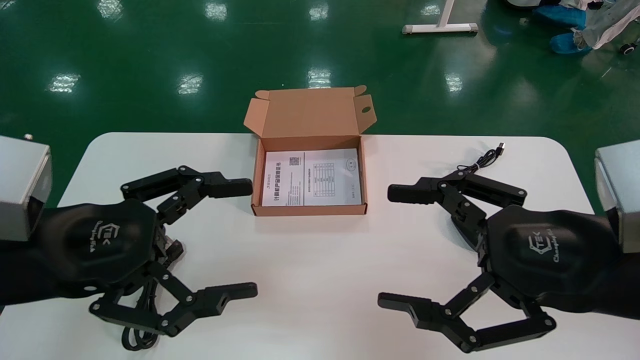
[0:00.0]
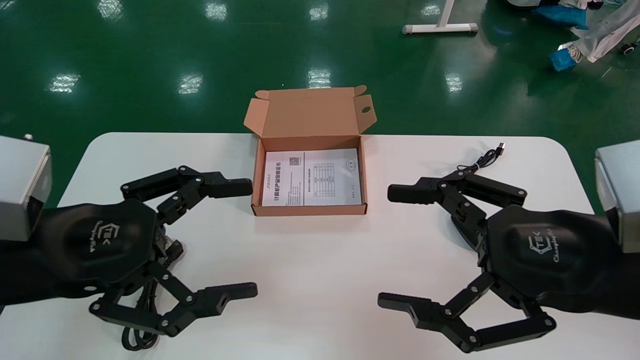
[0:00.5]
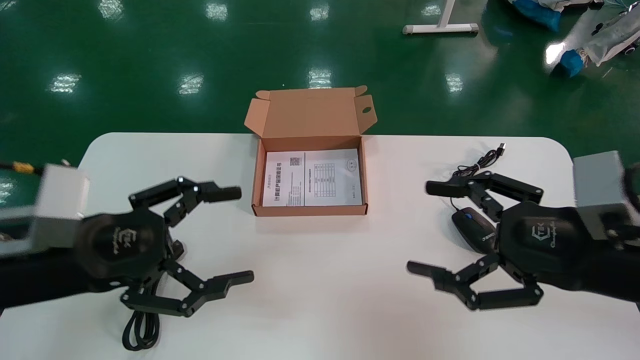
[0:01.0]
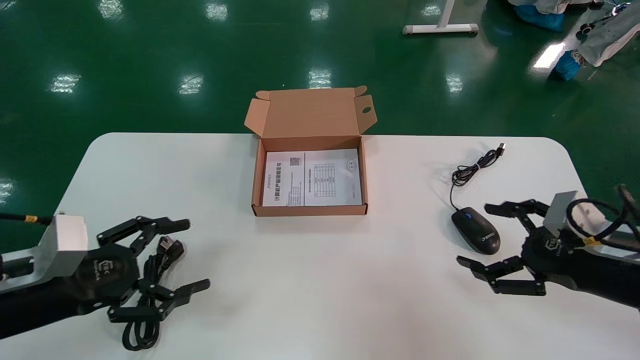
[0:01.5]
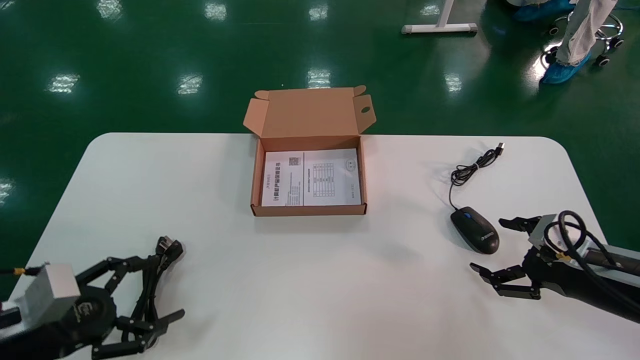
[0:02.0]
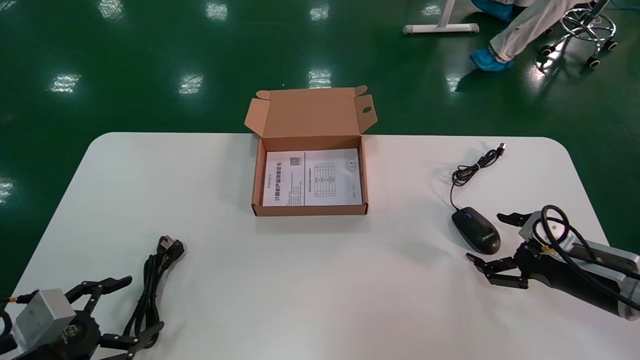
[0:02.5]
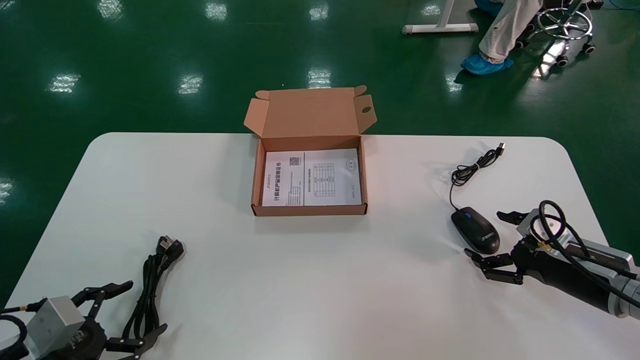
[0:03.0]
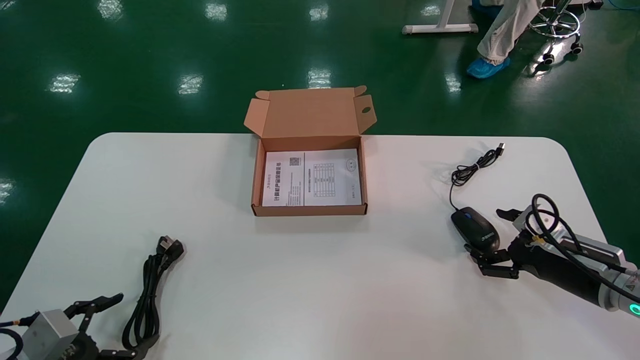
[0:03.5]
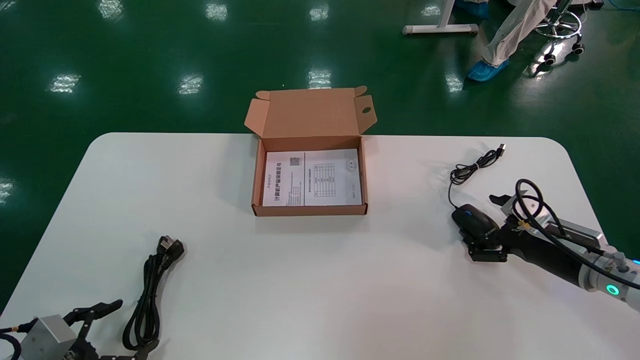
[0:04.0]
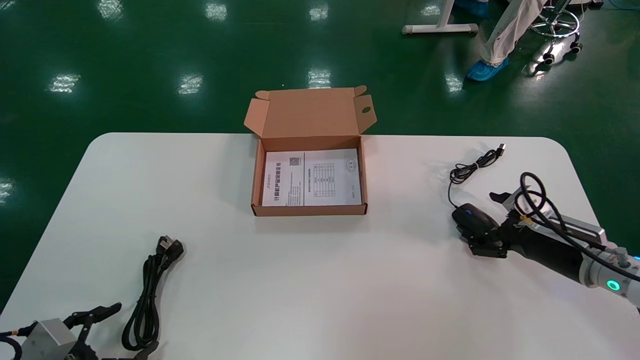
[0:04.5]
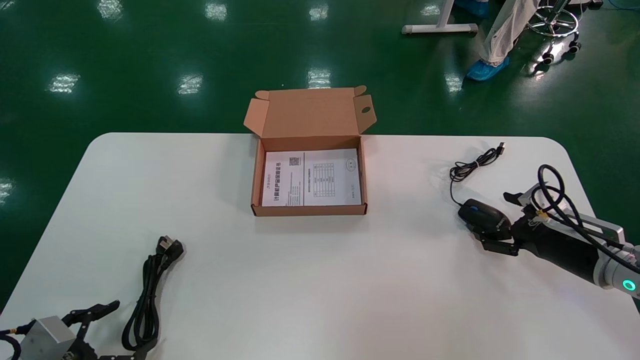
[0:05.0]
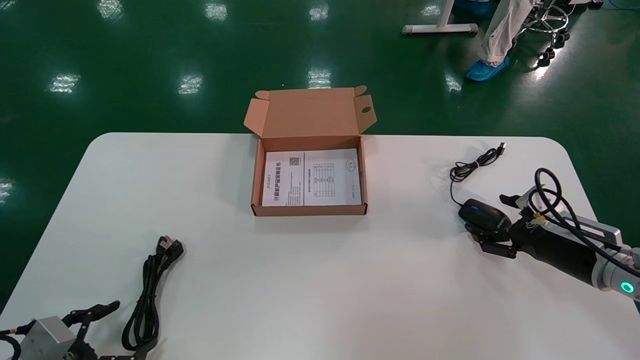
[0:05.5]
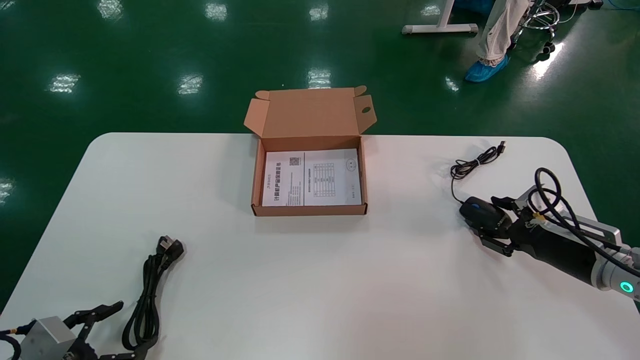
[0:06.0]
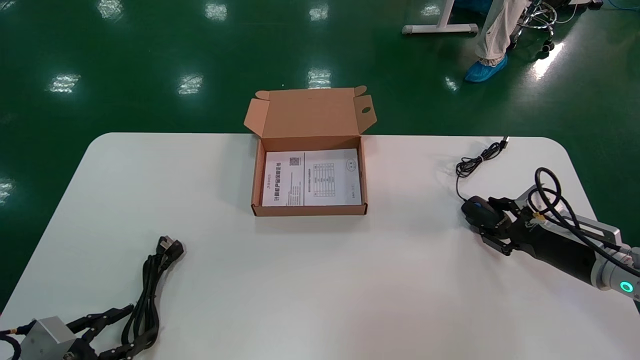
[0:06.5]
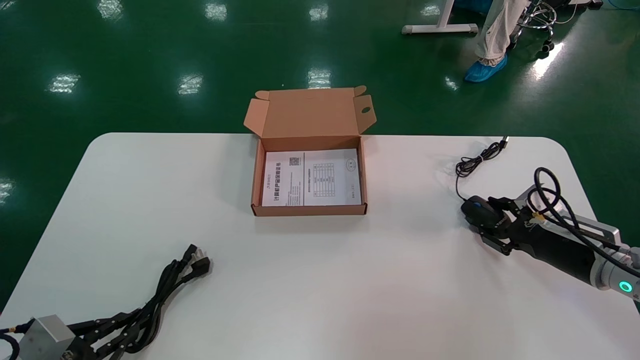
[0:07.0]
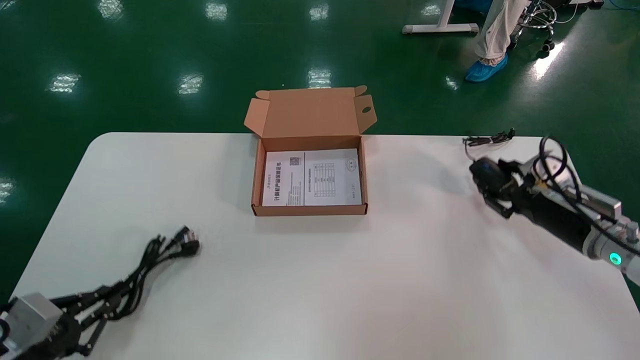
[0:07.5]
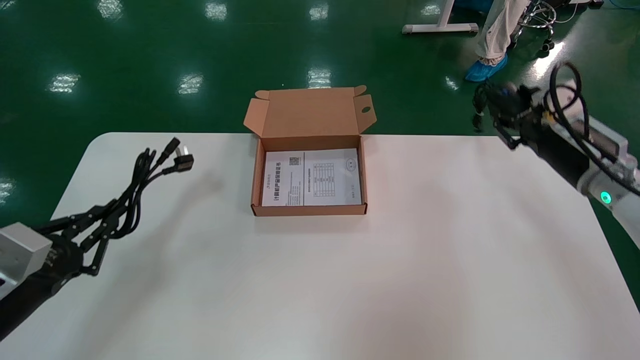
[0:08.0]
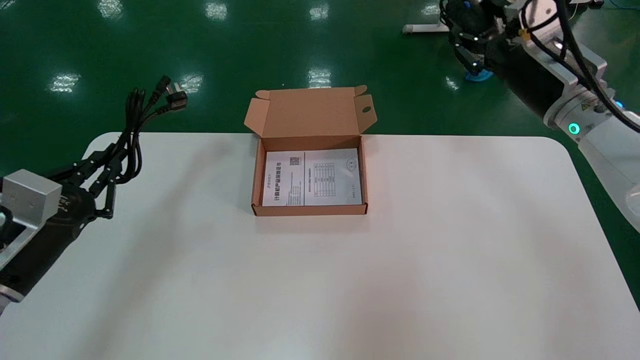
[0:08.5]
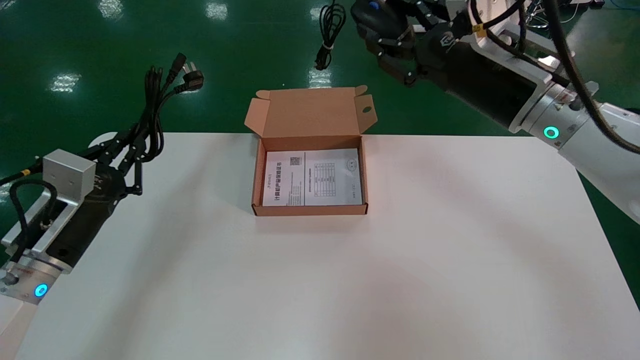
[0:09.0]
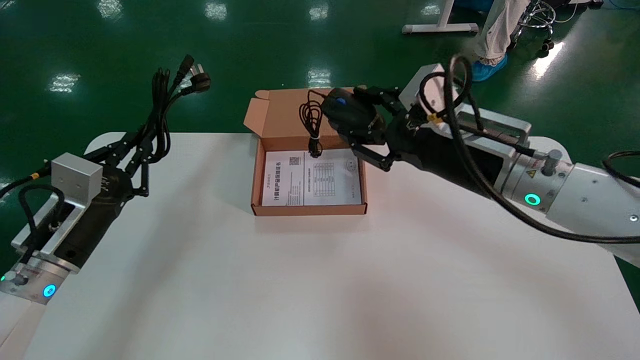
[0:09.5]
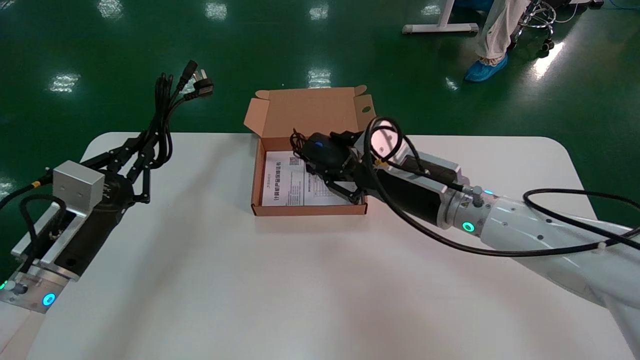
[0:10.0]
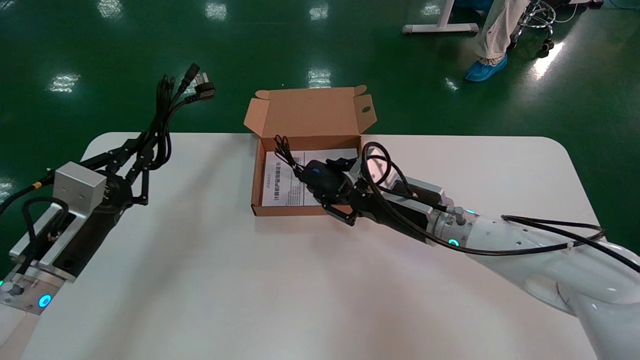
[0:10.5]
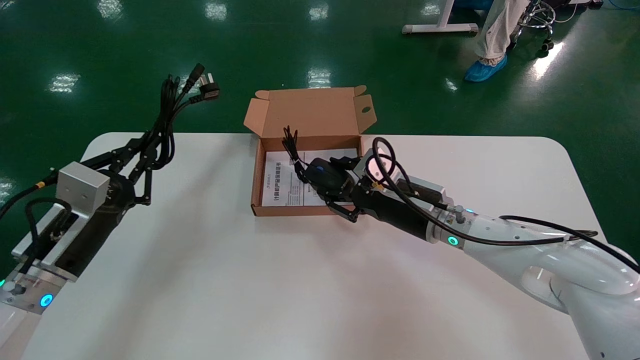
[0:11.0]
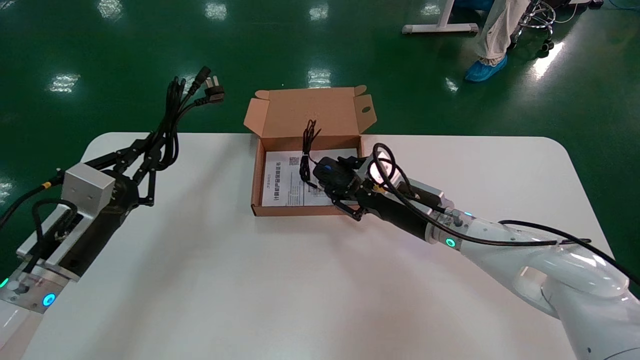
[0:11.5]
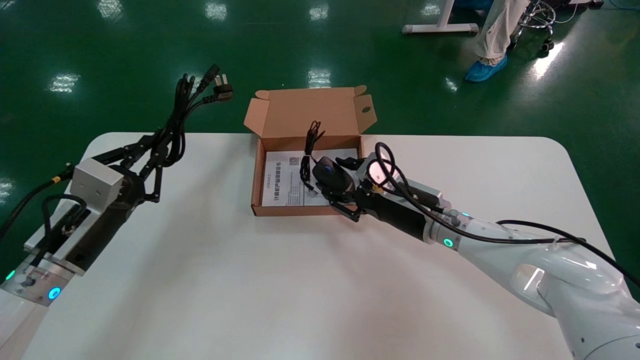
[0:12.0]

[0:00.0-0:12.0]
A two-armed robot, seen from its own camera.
Step, 0:01.5 to 0:07.0: Grab and pick up the mouse and power cord from the accessory packaging area.
0:00.0 to 0:02.0: The right gripper heads downward, to the right and forward, covering about 20 cm. The left gripper is displaced downward and to the left by about 20 cm.
0:02.0 to 0:04.0: The left gripper travels downward by approximately 10 cm. Meanwhile the right gripper travels forward by some 10 cm.
0:04.0 to 0:06.0: The right gripper closes up.
0:06.0 to 0:08.0: The left gripper heads upward and forward, covering roughly 10 cm, and closes up, while the right gripper is displaced upward by approximately 15 cm, and closes up.
0:08.0 to 0:10.0: The left gripper travels forward and to the right by approximately 10 cm; the right gripper shifts some 20 cm to the left.
0:10.0 to 0:12.0: The right gripper is displaced downward and forward by approximately 10 cm.

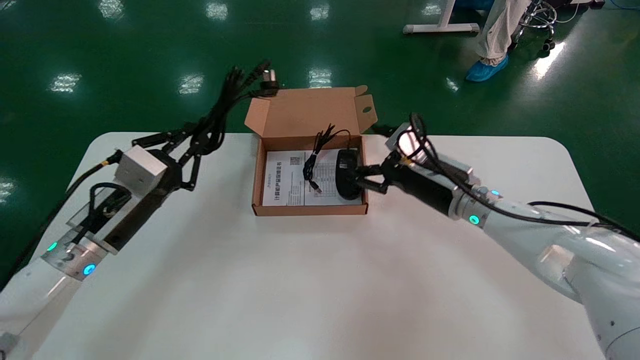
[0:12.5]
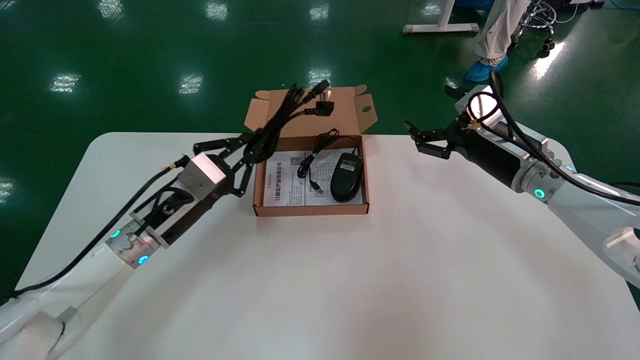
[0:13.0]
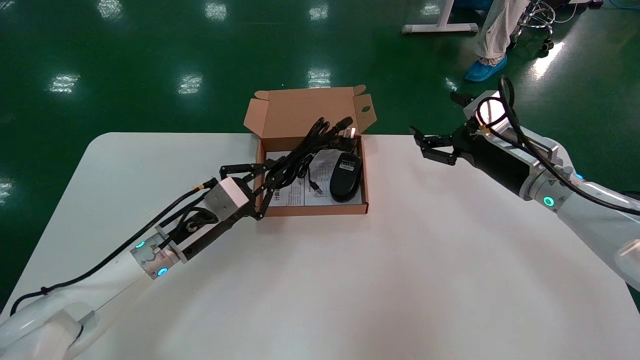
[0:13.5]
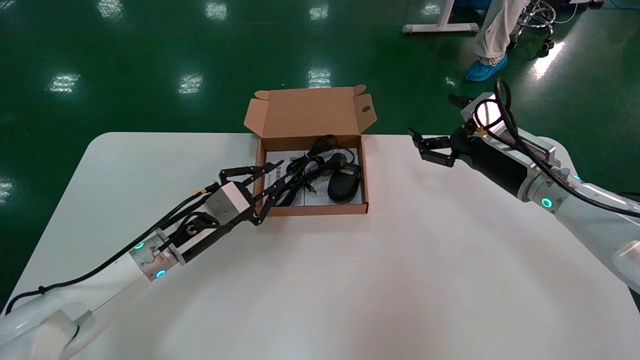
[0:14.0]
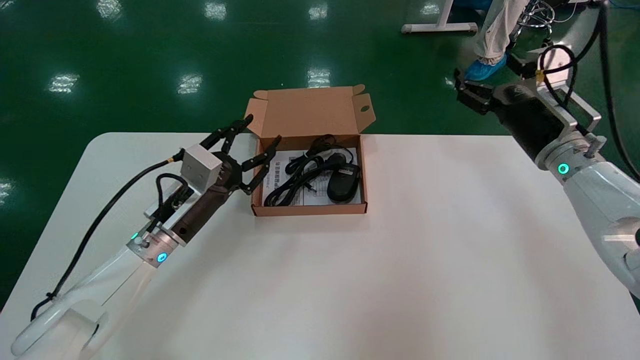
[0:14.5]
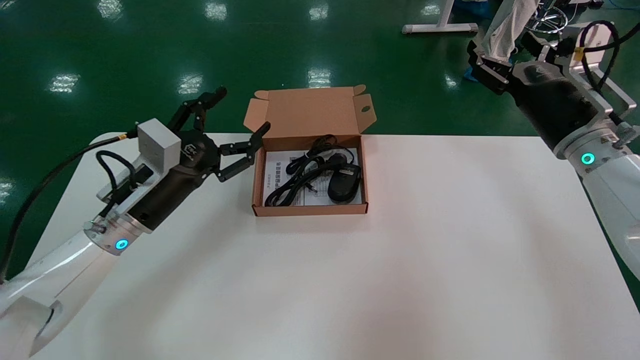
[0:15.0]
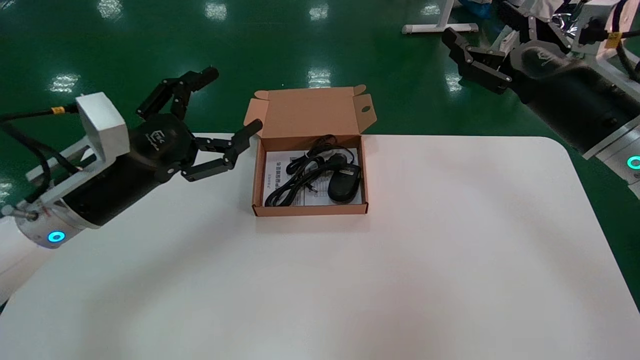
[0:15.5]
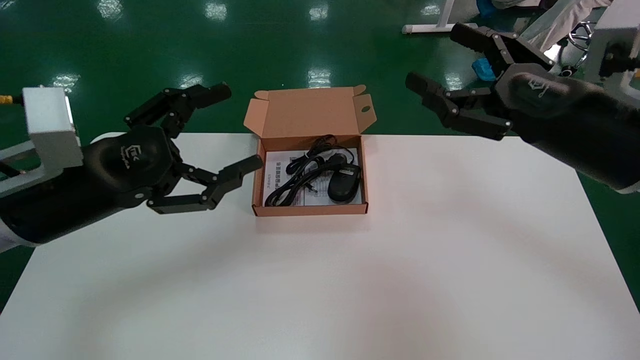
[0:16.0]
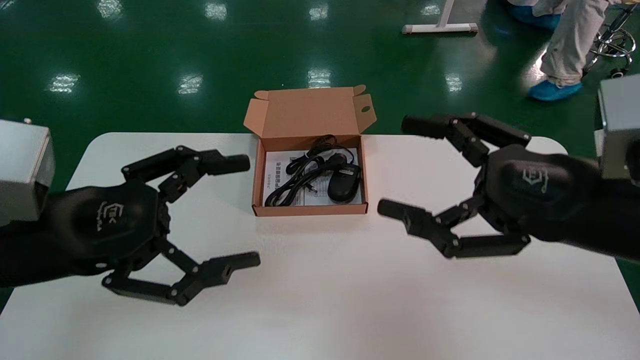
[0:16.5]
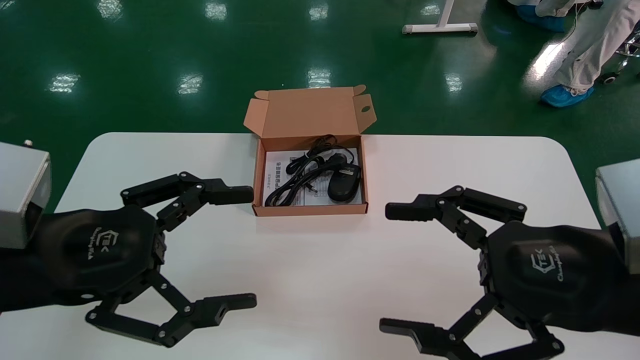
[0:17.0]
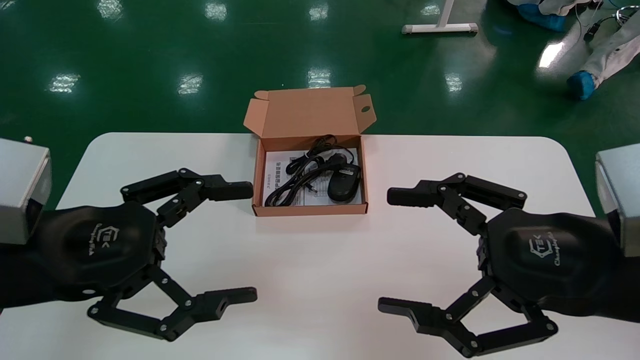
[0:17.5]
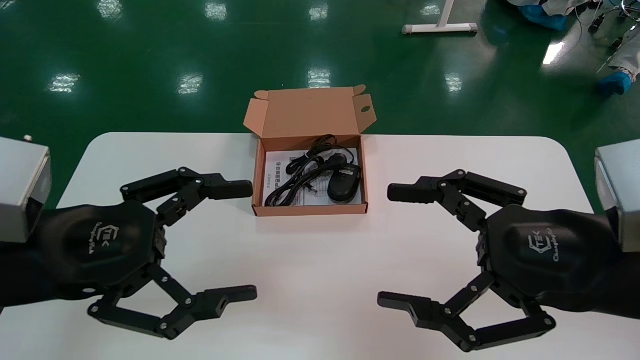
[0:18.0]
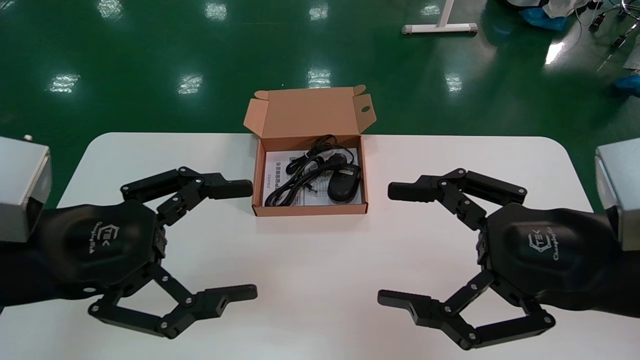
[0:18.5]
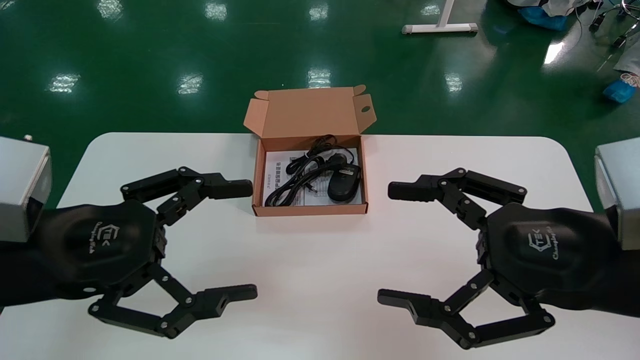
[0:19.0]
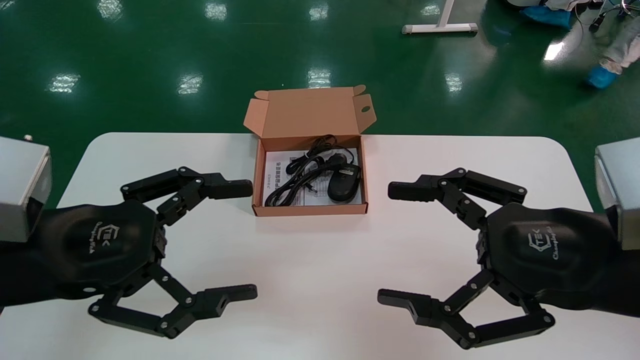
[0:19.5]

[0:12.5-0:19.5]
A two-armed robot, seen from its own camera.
0:12.5 to 0:14.5: The right gripper travels to the right and upward by approximately 15 cm, and opens. Meanwhile the left gripper moves to the right and forward, about 10 cm, and opens.
0:14.5 to 0:16.0: The right gripper is displaced backward by about 15 cm. The left gripper moves backward and upward, about 20 cm, and opens up.
0:16.0 to 0:17.5: The grippers both shift backward by some 10 cm.
0:17.5 to 0:19.5: Neither gripper changes place.
